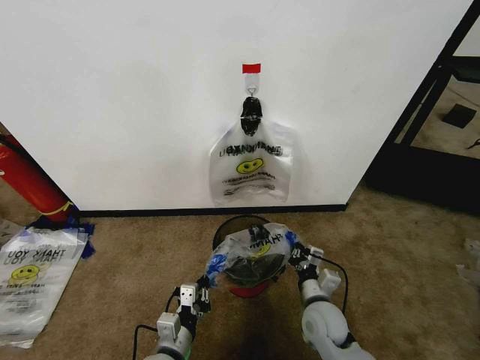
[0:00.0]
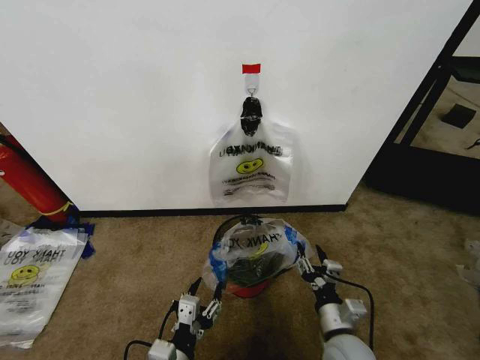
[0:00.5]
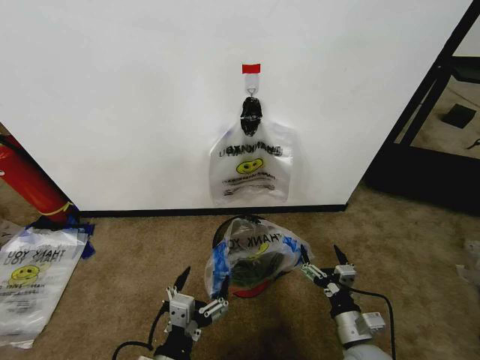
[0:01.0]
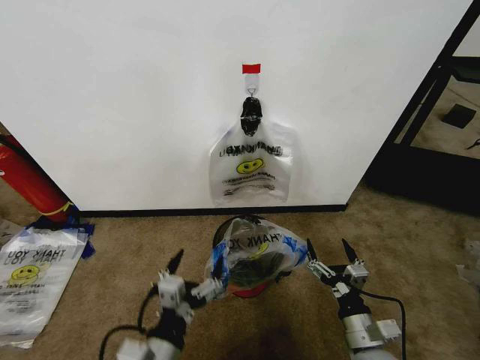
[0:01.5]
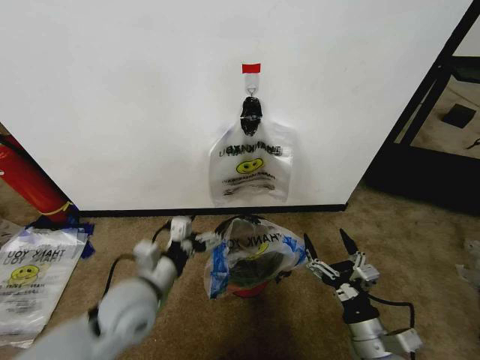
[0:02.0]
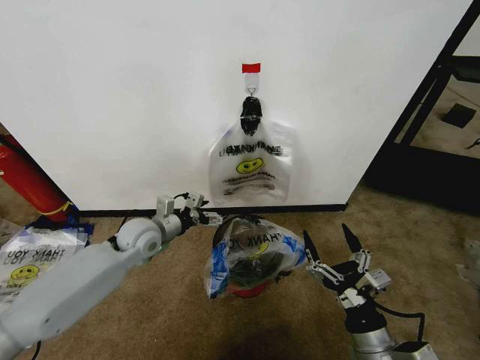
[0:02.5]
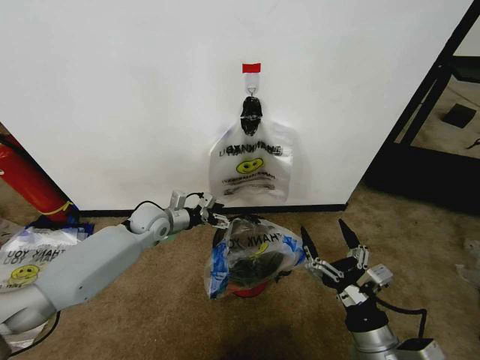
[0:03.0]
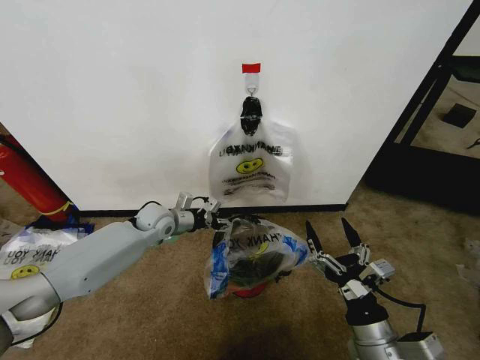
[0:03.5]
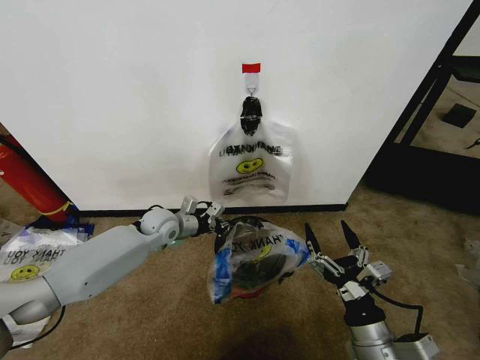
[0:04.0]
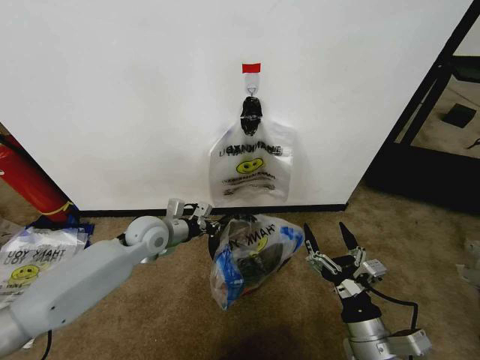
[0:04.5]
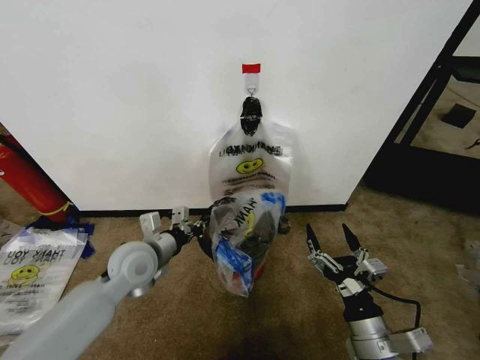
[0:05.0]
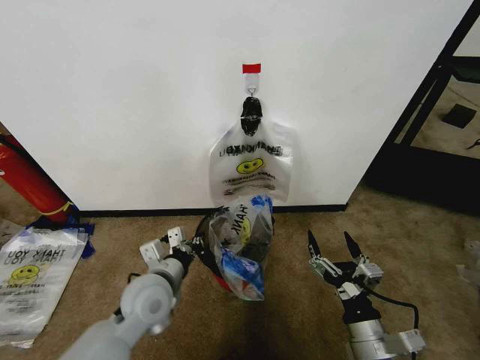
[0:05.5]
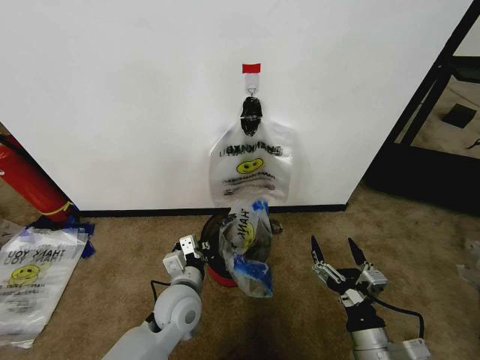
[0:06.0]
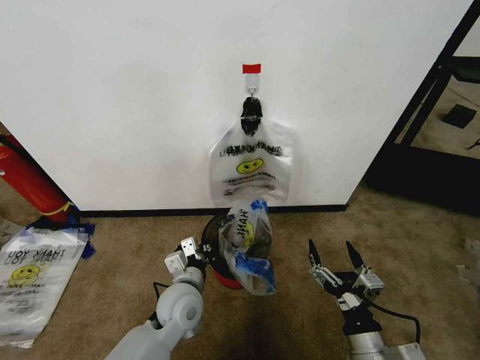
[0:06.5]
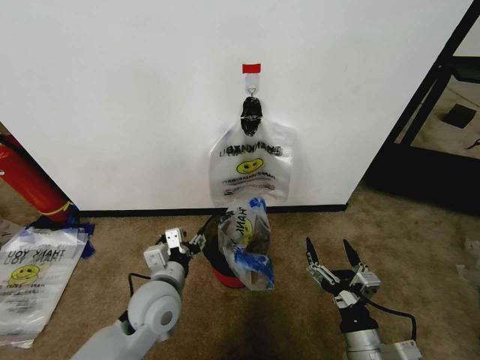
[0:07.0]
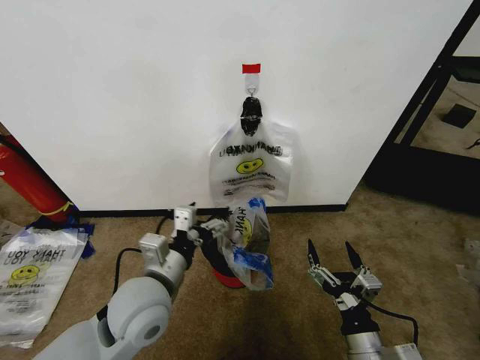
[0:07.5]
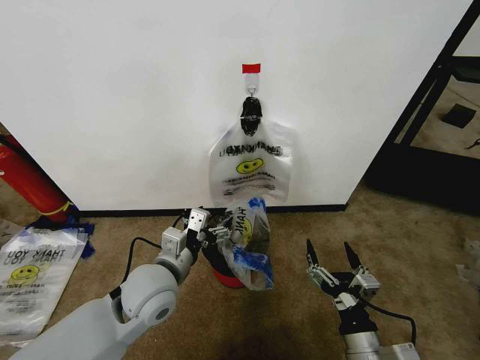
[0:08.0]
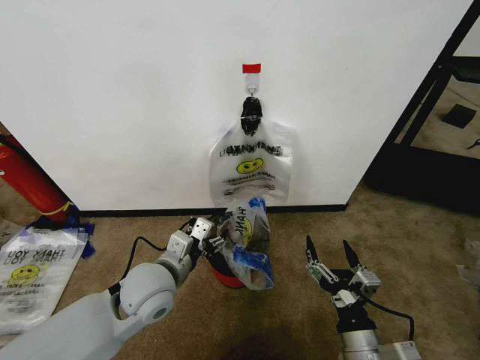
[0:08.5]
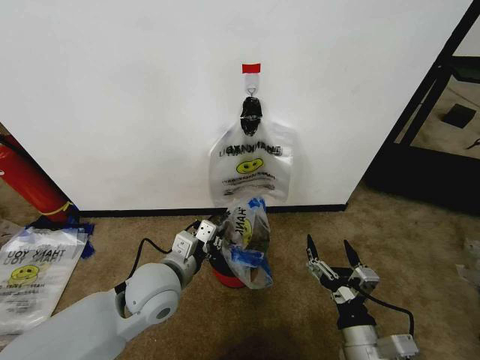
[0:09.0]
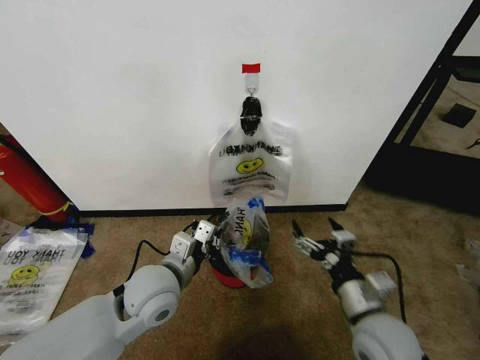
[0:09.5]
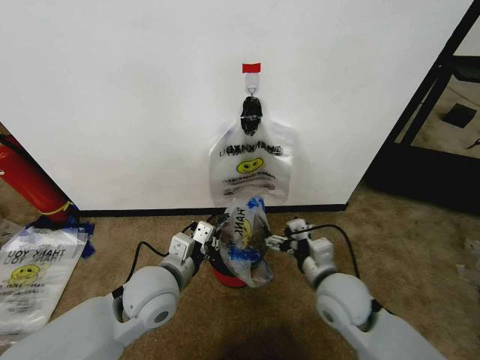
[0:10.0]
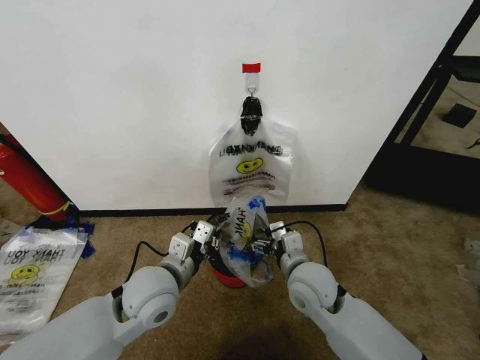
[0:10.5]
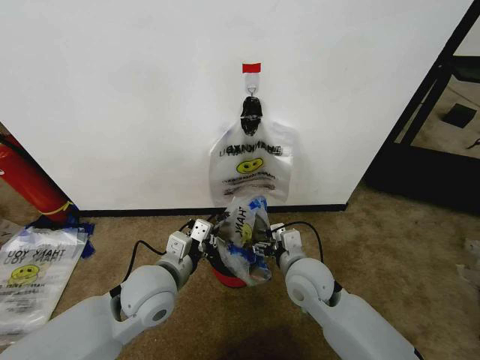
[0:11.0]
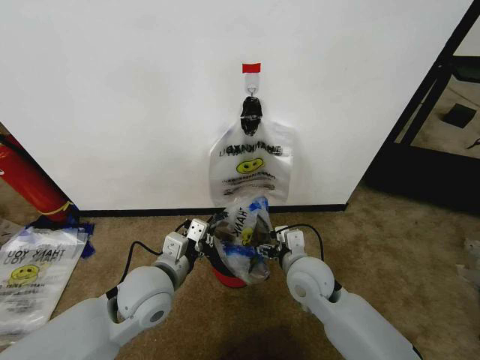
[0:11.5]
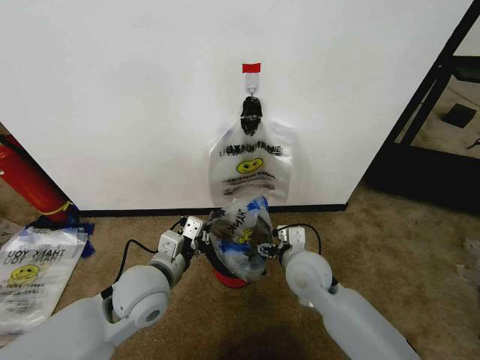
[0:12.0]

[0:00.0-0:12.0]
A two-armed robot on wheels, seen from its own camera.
Task of the whole recording: Pick up the garbage bag from the wall and place it over the trash bin.
0:00.0 to 0:02.0: The right gripper shifts approximately 15 cm backward, to the right and upward, and opens; the left gripper moves upward and forward, some 15 cm, and opens up.
0:02.0 to 0:04.0: The left gripper travels forward by some 25 cm, and closes up, while the right gripper moves some 5 cm.
0:04.0 to 0:06.0: The left gripper moves backward and to the right, about 20 cm.
0:06.0 to 0:08.0: The left gripper is displaced upward by roughly 10 cm, and opens.
0:08.0 to 0:10.0: The left gripper closes its fingers. Meanwhile the right gripper travels forward by some 15 cm.
0:10.0 to 0:12.0: The right gripper moves to the left, roughly 5 cm.

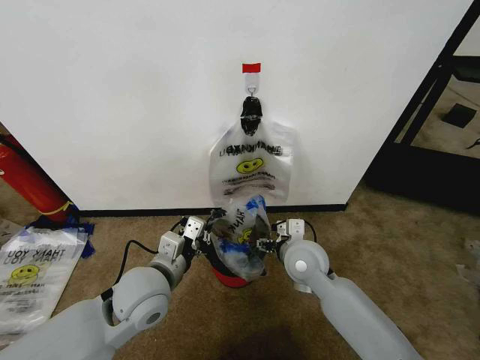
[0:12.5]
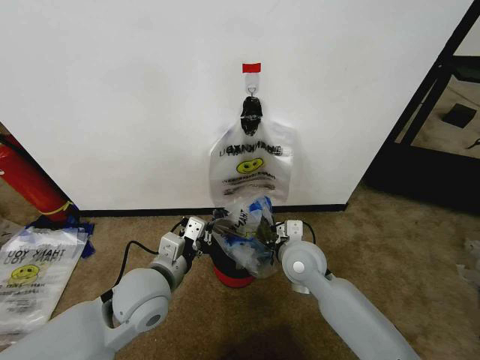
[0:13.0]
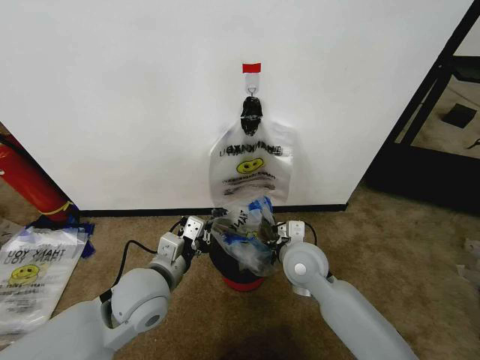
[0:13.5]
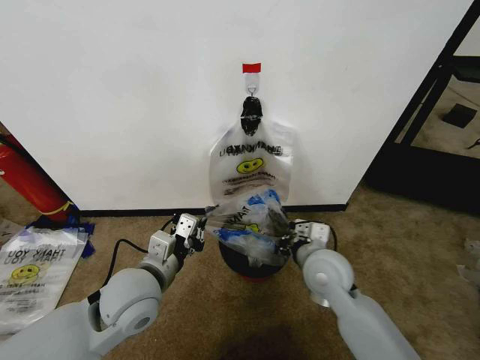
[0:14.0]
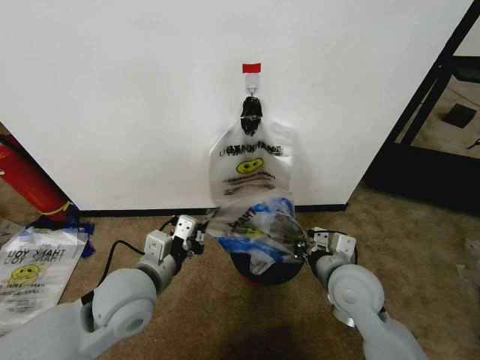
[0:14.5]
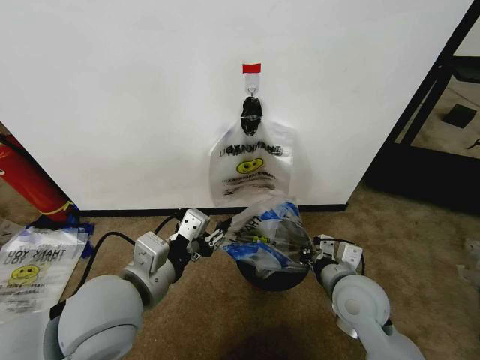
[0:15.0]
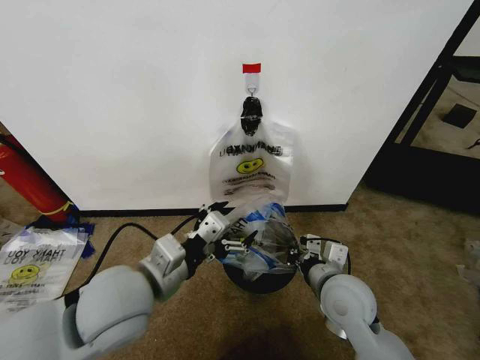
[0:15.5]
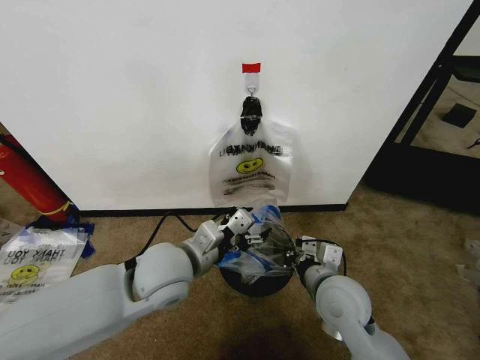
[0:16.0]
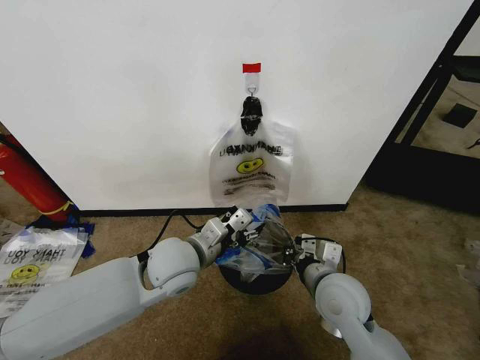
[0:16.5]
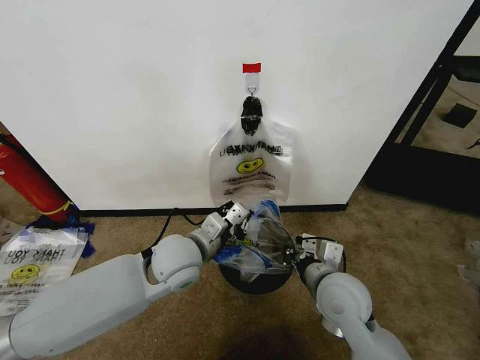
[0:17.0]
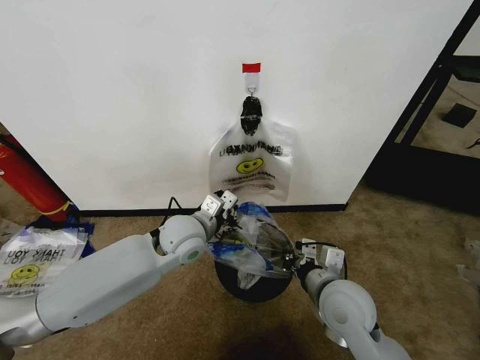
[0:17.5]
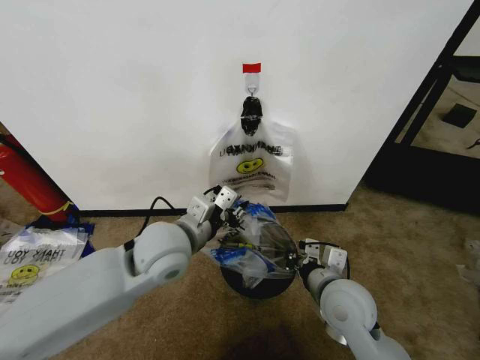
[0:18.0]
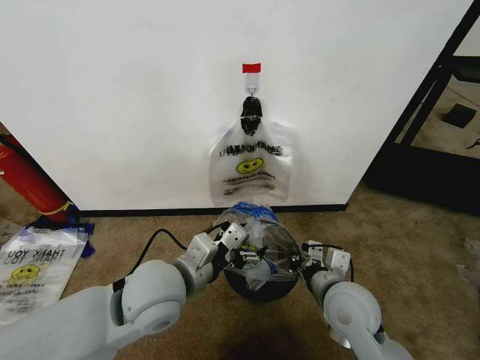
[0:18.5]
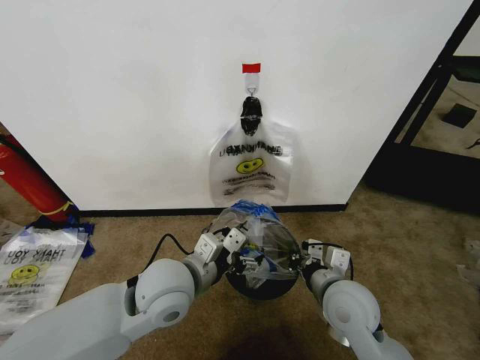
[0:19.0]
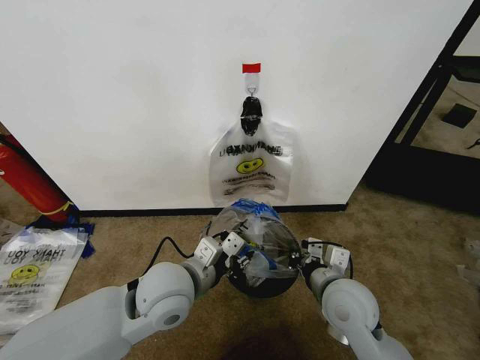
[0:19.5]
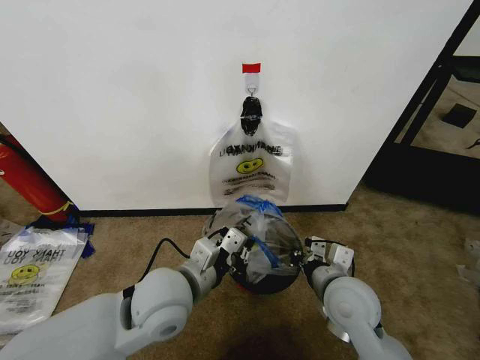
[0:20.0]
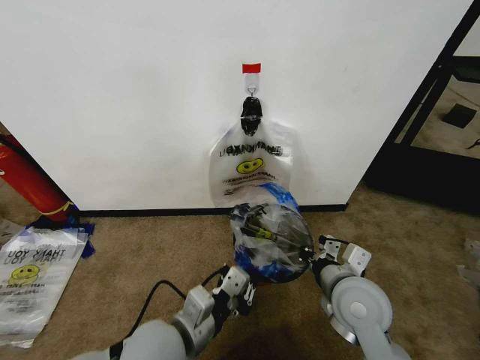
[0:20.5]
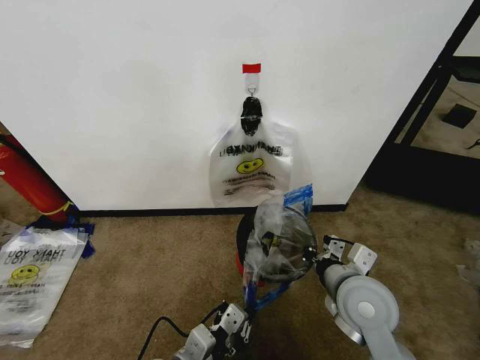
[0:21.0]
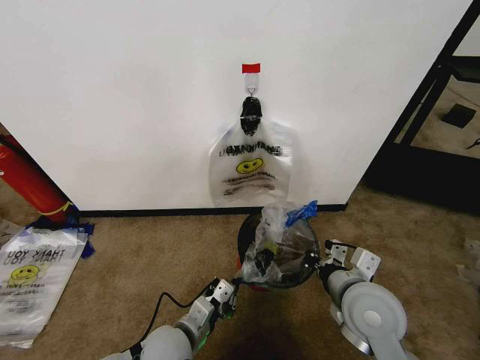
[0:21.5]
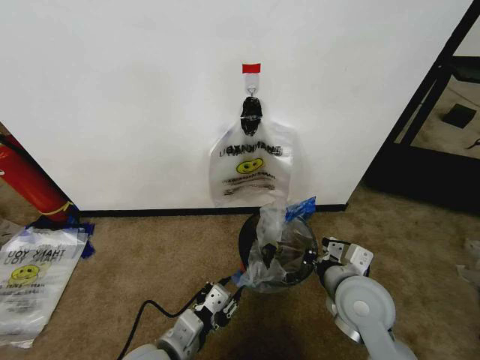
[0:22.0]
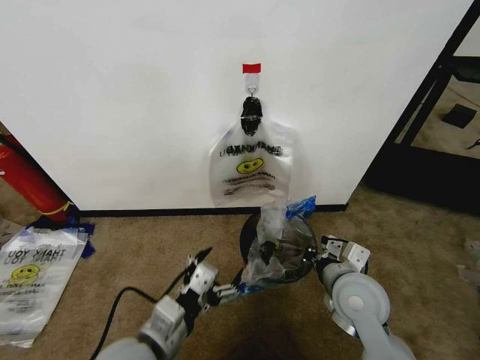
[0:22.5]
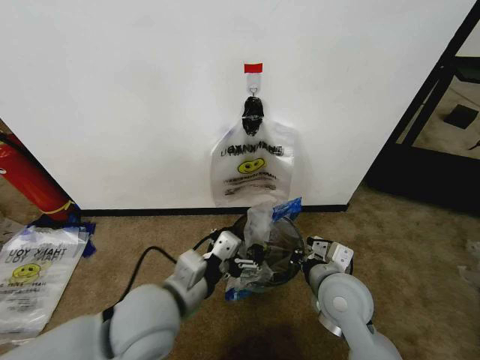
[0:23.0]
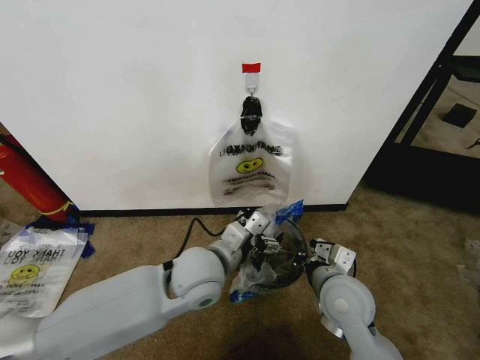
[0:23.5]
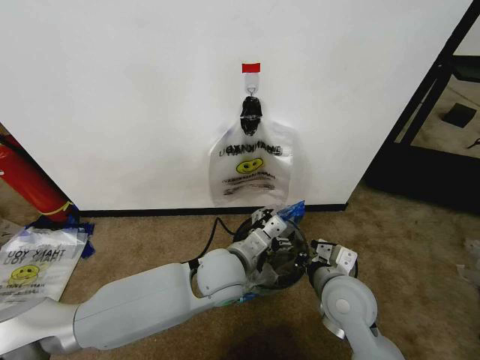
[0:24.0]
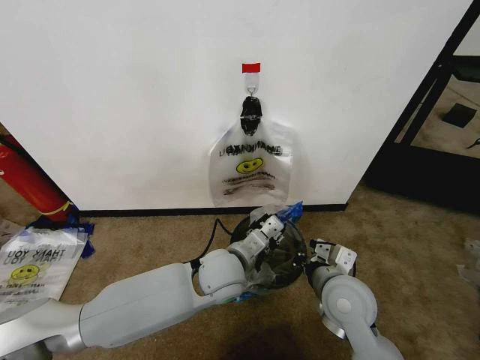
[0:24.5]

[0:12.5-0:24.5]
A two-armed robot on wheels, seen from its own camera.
Task of the whole recording: Pick up the garbage bag from the wall and place it over the trash bin.
0:12.5 to 0:14.5: The right gripper shifts about 10 cm to the right and backward, and closes.
0:14.5 to 0:16.5: The left gripper shifts some 10 cm to the right and forward, and opens.
0:16.5 to 0:18.5: The left gripper heads backward, covering approximately 5 cm, and closes, then reopens.
0:18.5 to 0:20.5: The left gripper is displaced backward and downward by roughly 10 cm, and closes its fingers.
0:20.5 to 0:22.5: The left gripper moves roughly 10 cm downward and comes back, and opens.
0:22.5 to 0:24.5: The left gripper shifts roughly 20 cm forward and to the right, and closes its fingers.

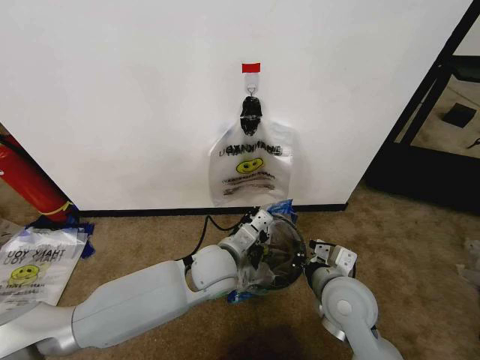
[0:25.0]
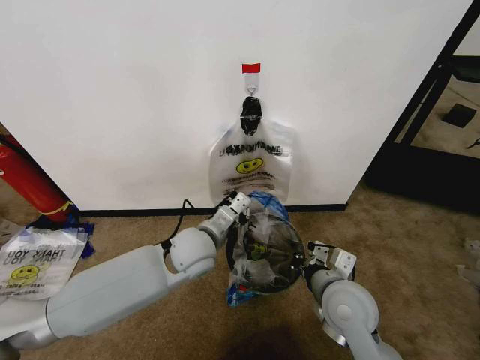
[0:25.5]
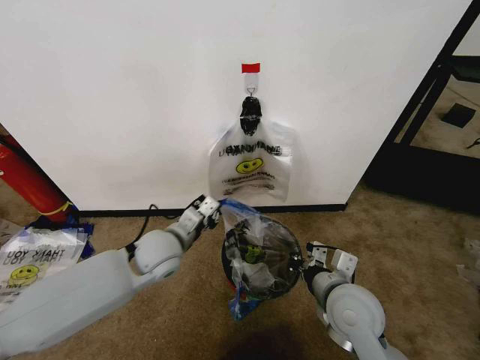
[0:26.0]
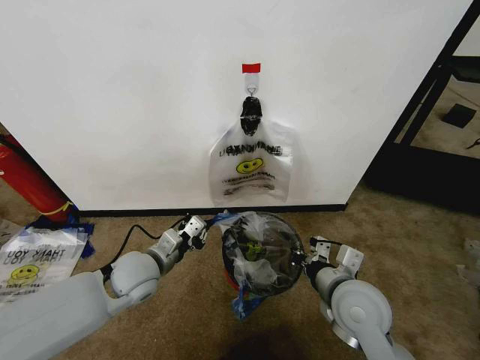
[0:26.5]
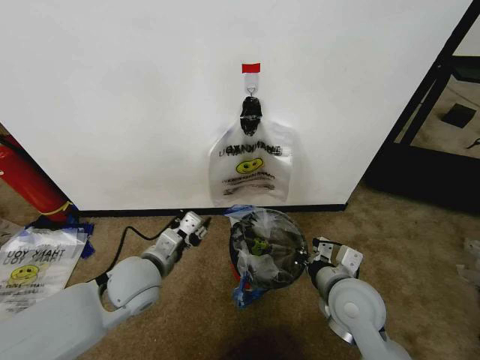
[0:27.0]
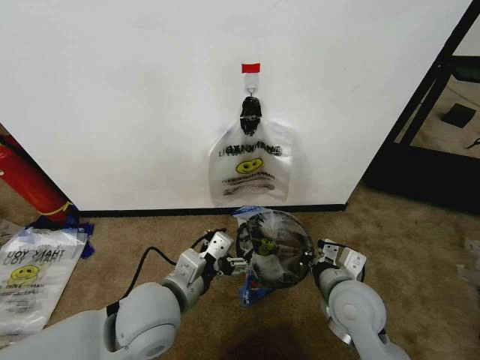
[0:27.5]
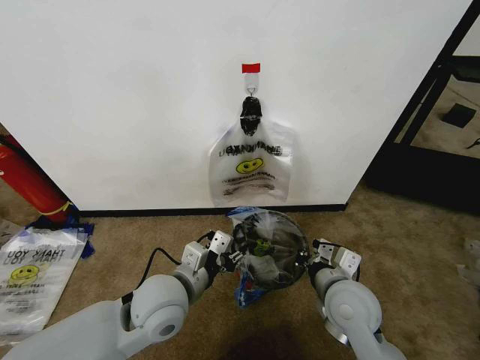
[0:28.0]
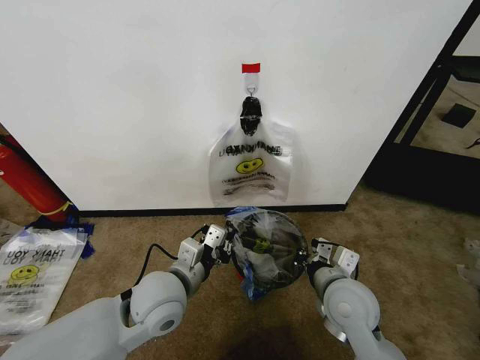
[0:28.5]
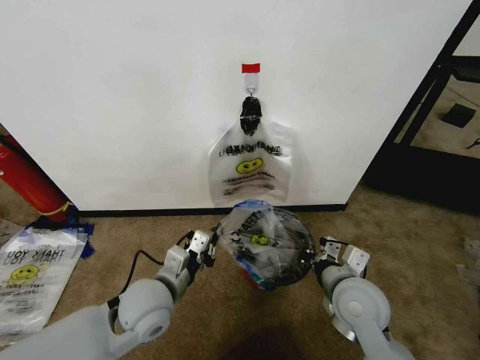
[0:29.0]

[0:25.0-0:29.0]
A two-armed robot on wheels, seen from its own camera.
Task of the whole recording: Pick up the garbage bag from the wall and place it over the trash bin.
0:25.0 to 0:27.0: The left gripper shifts roughly 15 cm to the left, and opens.
0:27.0 to 0:29.0: The left gripper closes up.
